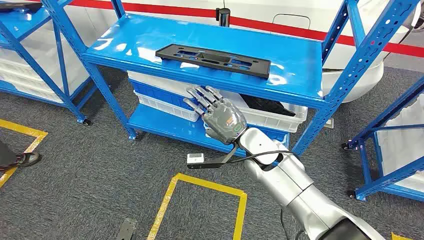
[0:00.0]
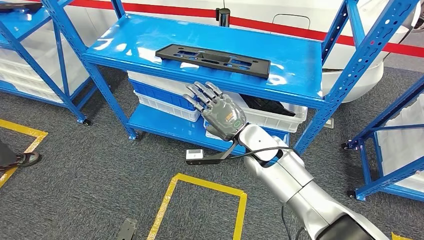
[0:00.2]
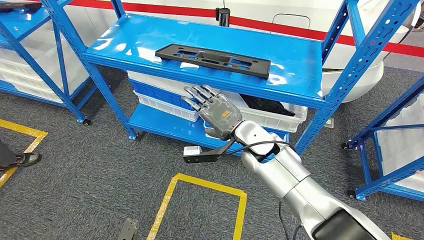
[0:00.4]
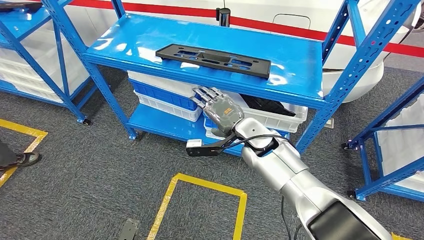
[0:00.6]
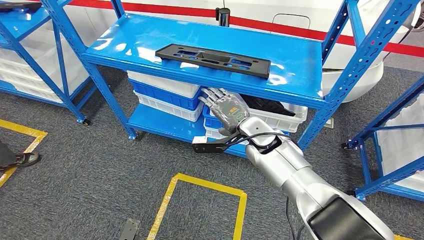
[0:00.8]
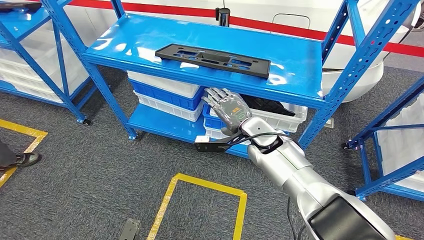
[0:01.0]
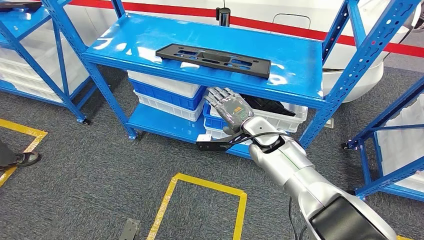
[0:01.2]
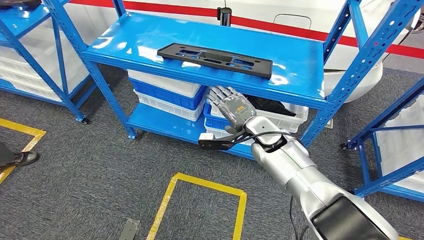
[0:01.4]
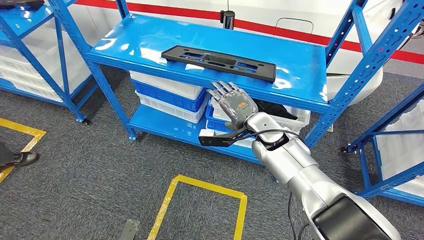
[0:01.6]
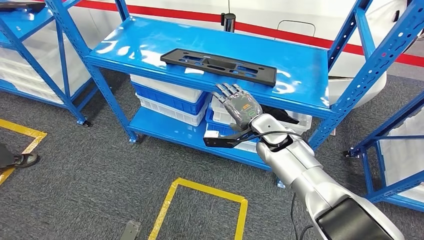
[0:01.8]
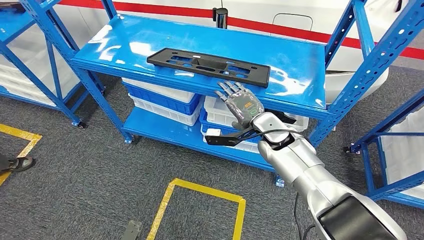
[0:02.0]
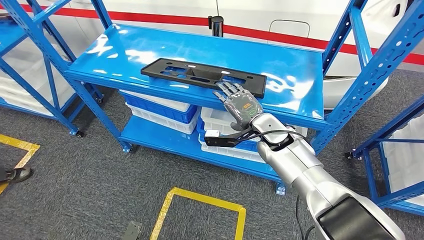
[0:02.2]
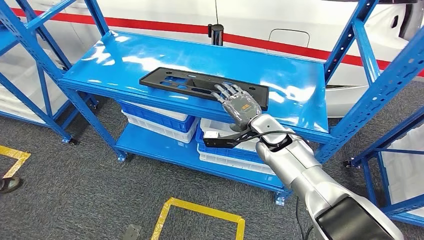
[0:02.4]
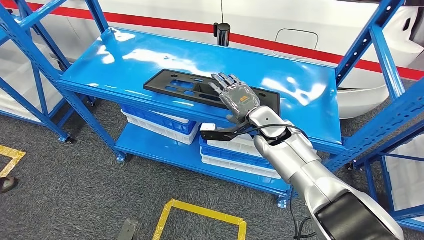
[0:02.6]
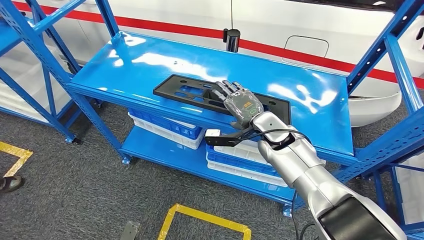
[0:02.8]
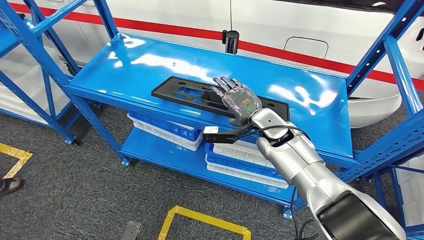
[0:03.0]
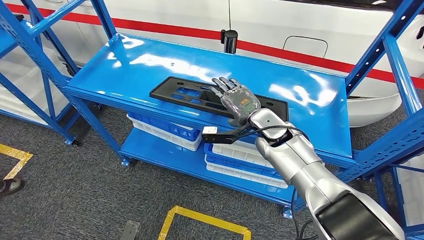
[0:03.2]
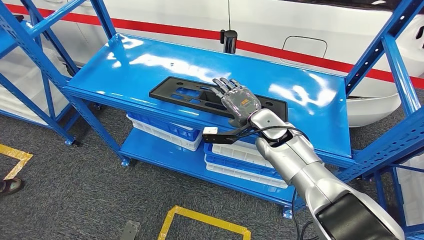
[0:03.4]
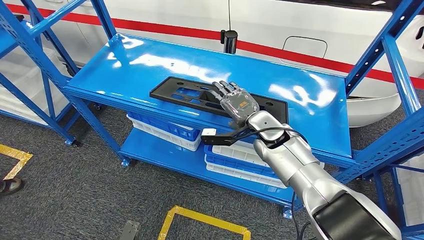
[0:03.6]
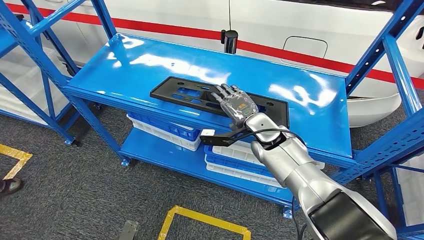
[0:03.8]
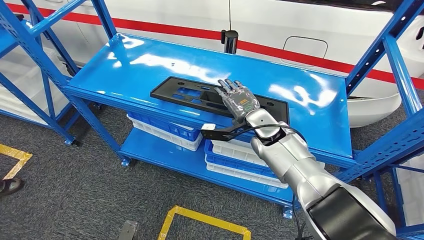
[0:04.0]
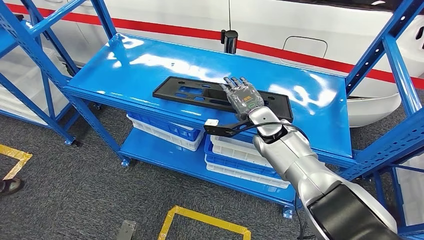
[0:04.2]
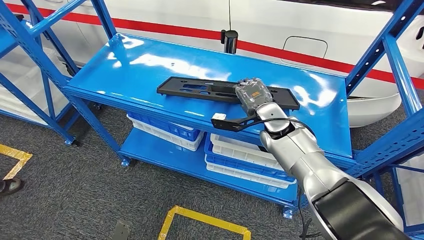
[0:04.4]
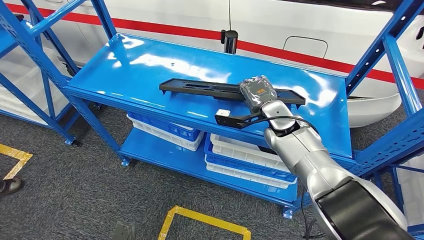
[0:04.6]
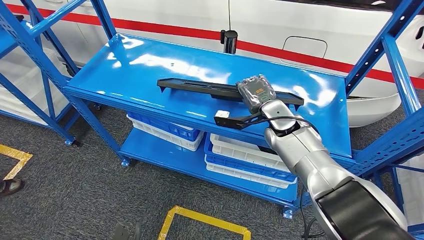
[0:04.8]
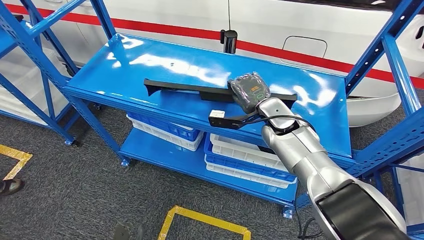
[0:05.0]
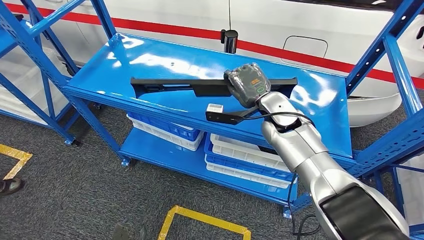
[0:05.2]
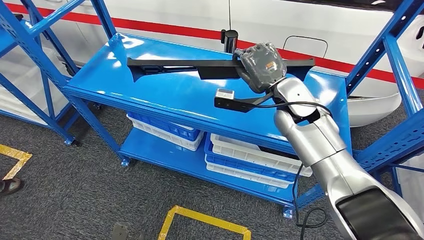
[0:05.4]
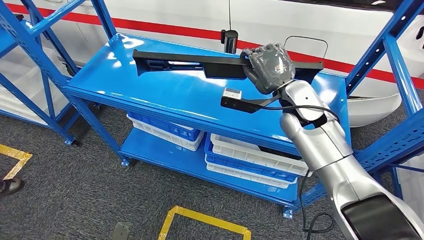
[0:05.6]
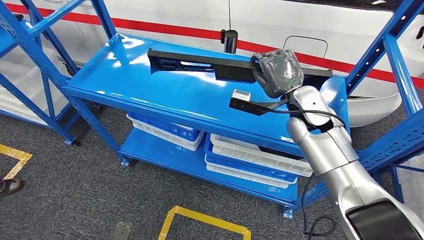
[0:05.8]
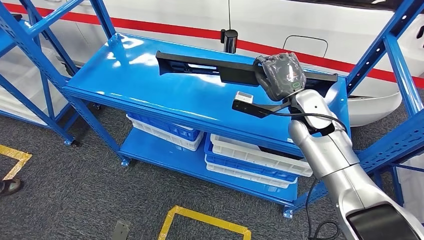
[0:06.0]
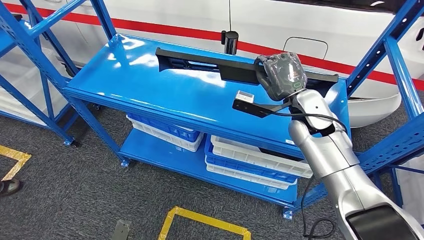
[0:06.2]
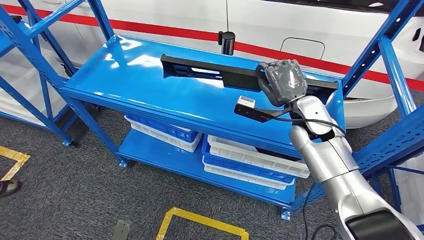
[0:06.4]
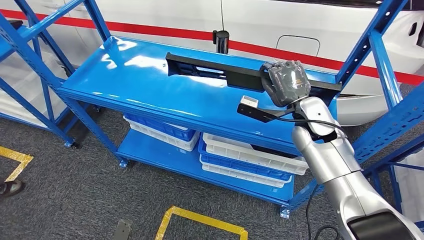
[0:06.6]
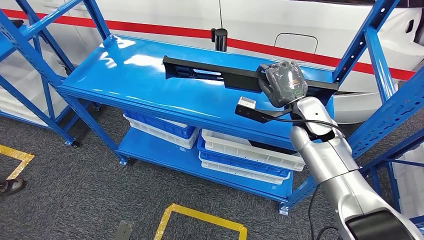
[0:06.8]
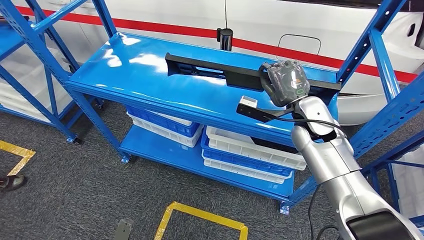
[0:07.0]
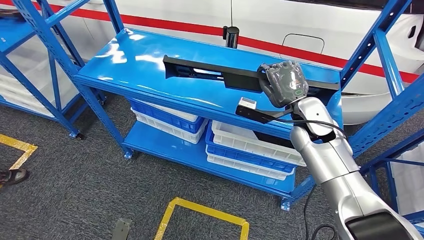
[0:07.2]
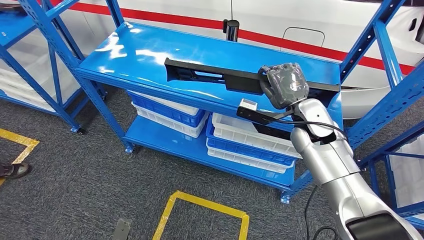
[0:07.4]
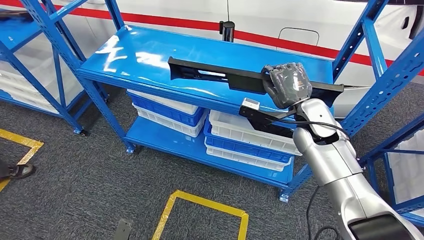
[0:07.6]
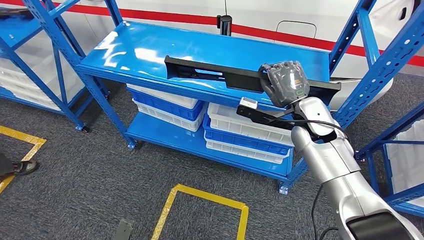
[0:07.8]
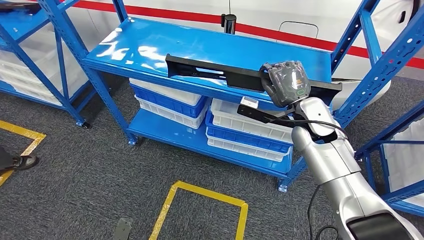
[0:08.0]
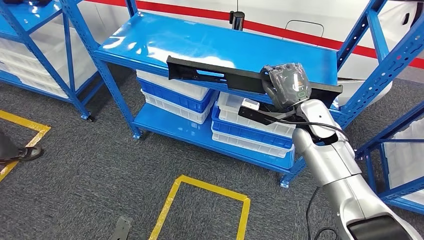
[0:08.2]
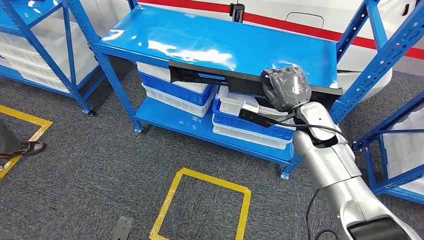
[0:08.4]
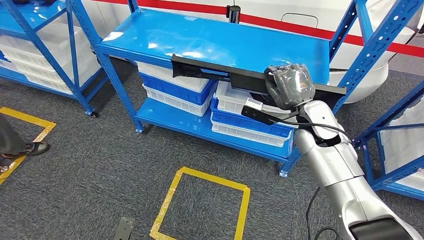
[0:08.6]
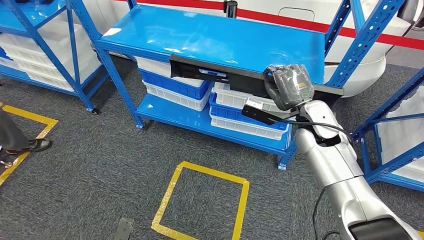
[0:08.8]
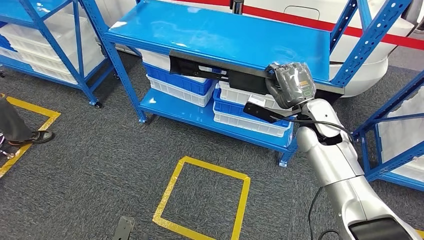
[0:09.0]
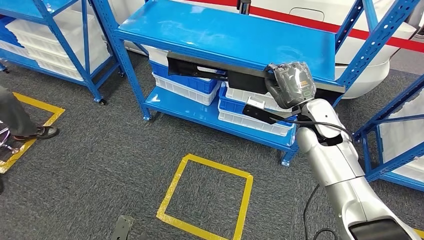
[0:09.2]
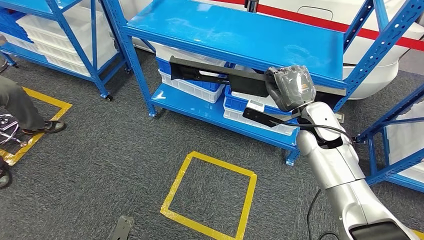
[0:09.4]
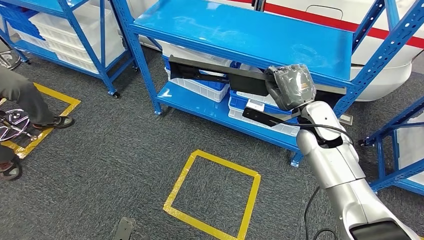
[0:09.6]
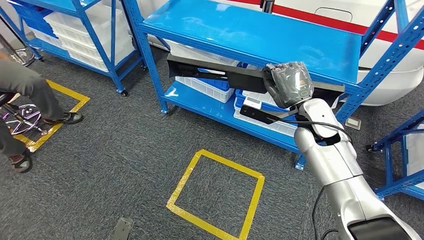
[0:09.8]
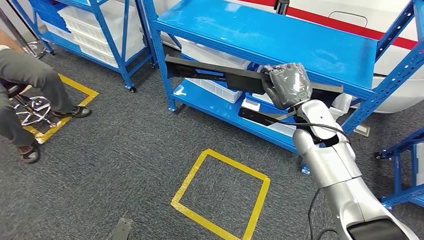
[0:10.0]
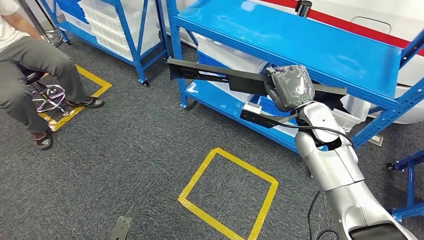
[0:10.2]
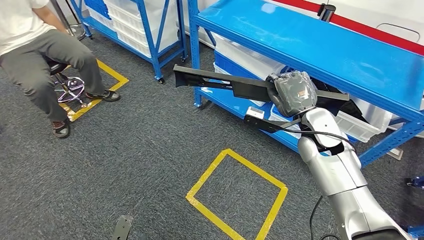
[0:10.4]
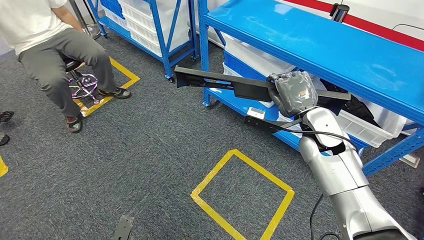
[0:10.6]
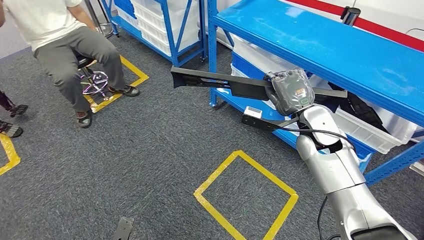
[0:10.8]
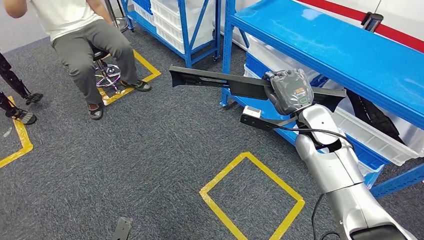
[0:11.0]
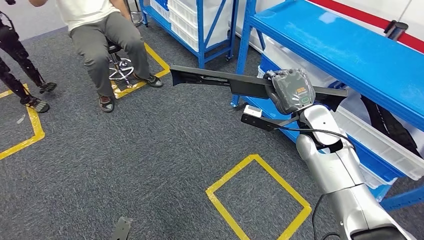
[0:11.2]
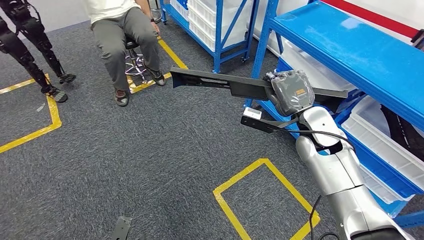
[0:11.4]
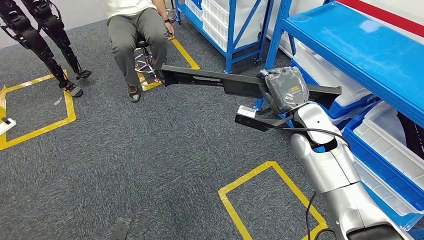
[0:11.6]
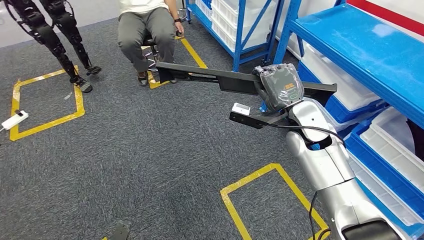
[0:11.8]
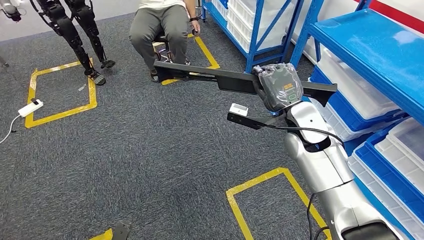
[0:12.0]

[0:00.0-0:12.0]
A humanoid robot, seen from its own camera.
Step, 0:00.0 to 0:10.2: Pick up the large material from the shelf.
0:03.0 to 0:04.4: The hands stay close to where they were, moving slightly.

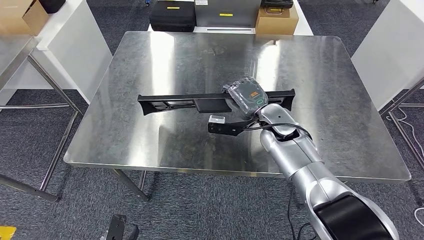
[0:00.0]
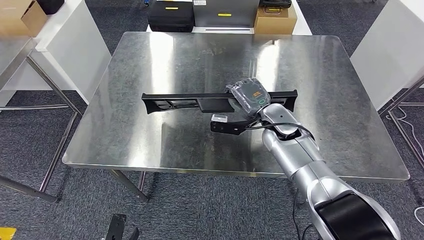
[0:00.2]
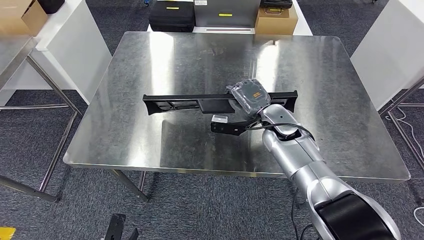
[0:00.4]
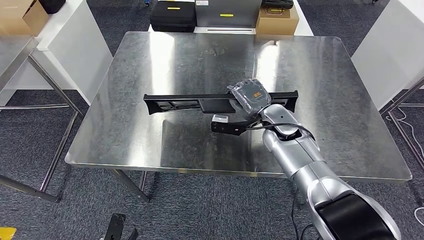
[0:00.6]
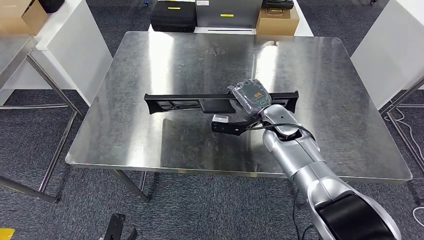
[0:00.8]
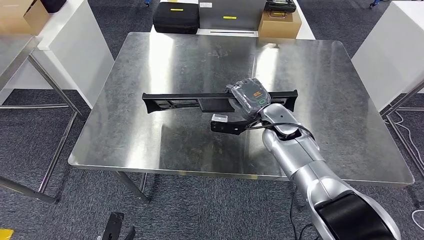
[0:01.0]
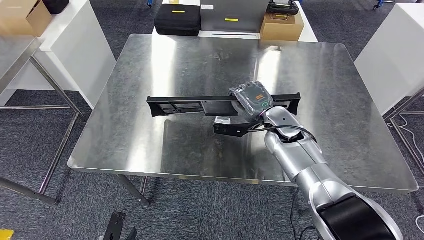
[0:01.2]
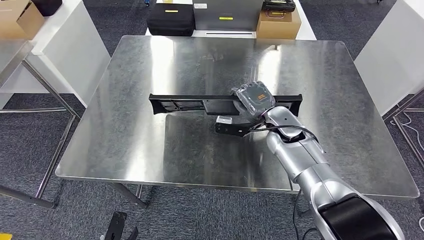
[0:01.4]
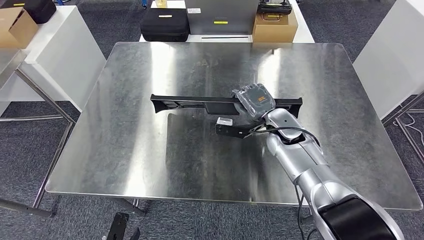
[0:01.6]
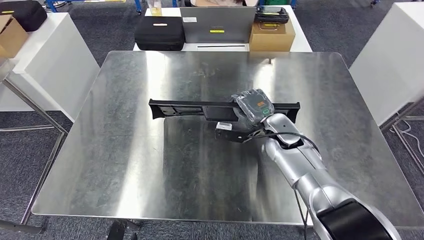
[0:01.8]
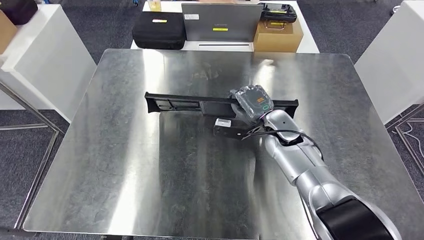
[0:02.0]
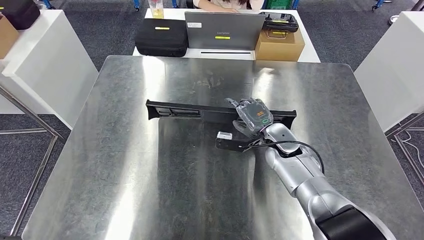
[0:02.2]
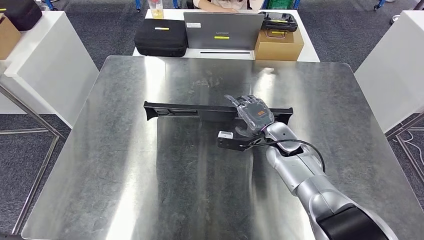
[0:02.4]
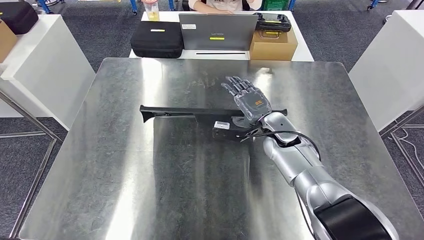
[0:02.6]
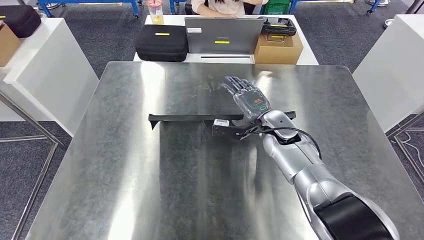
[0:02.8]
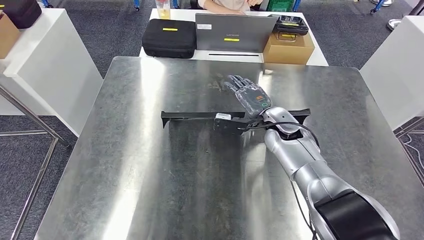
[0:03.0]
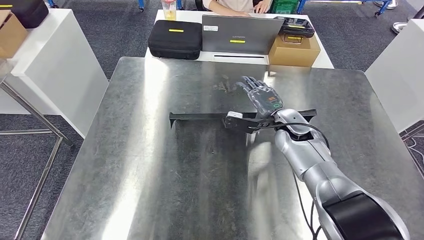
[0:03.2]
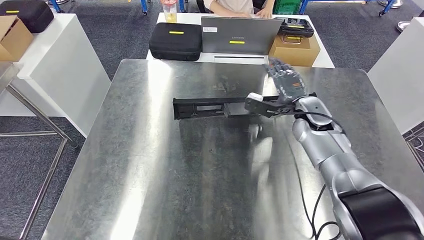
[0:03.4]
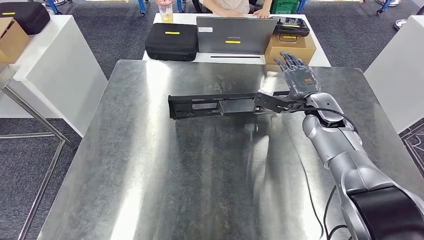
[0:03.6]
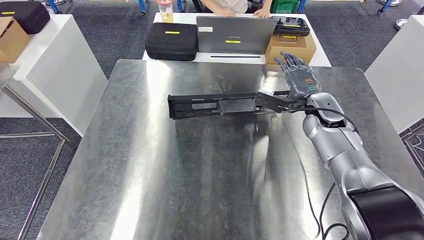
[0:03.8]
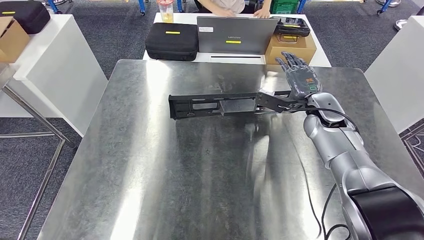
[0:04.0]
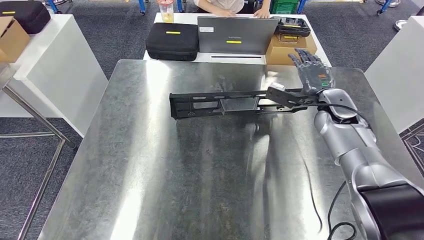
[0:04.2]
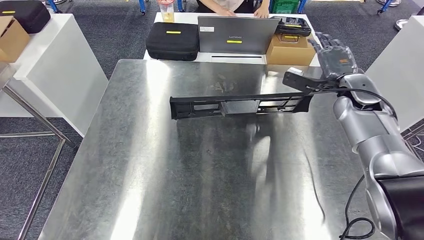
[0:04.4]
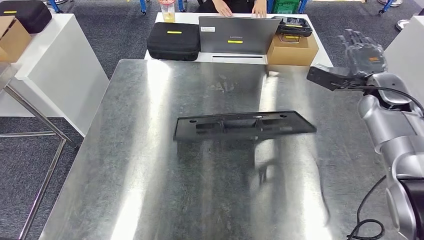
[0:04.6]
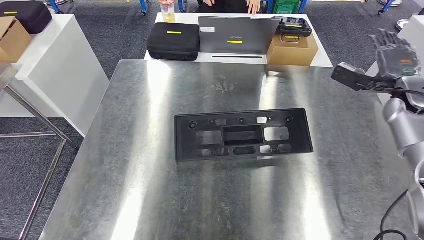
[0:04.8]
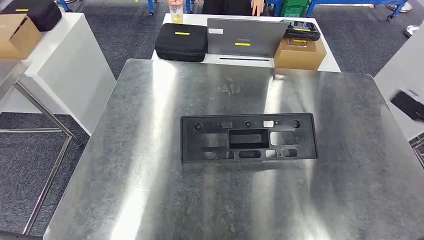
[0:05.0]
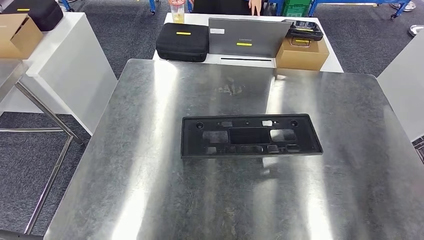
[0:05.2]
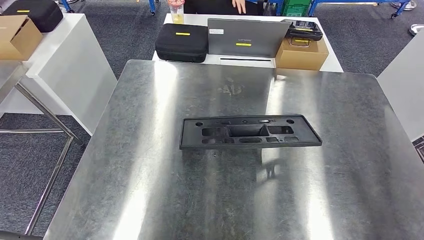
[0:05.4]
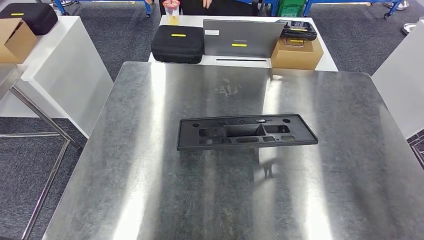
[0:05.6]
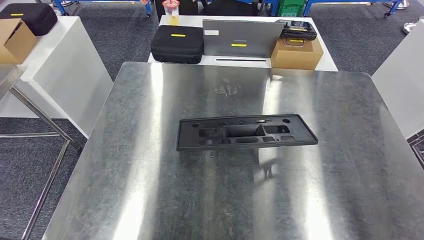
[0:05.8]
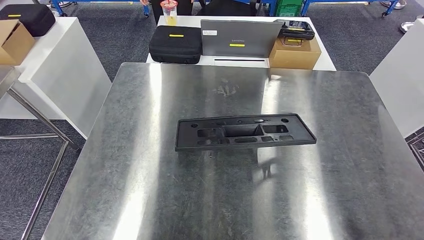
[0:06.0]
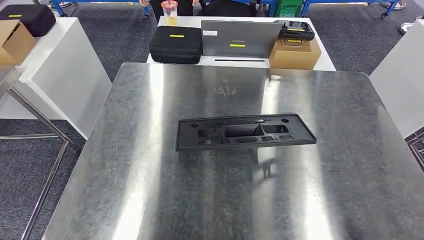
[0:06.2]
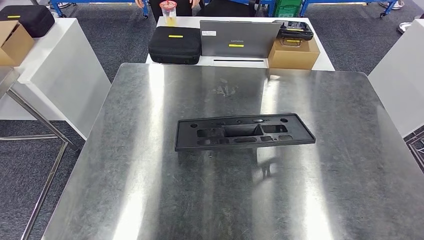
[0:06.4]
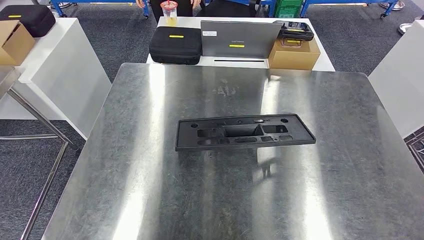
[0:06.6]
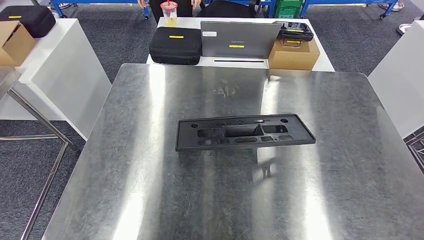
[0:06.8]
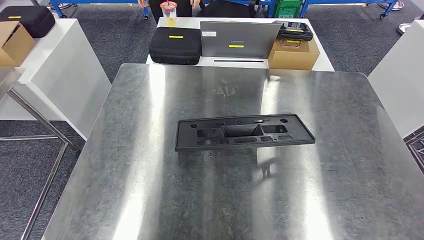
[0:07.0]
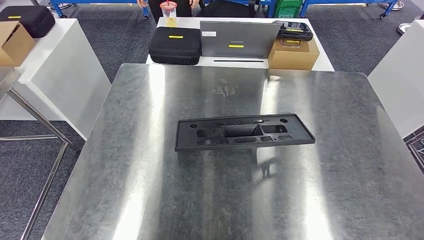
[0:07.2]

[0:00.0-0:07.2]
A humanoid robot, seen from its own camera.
0:05.8 to 0:07.2: The right hand moves downward and to the left, some 40 cm.
